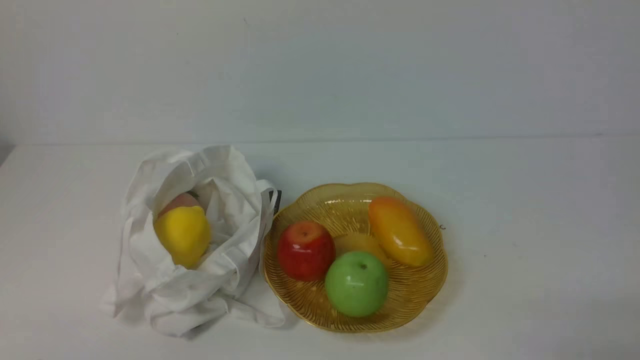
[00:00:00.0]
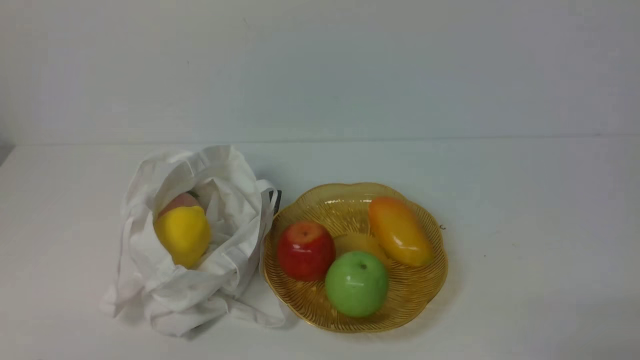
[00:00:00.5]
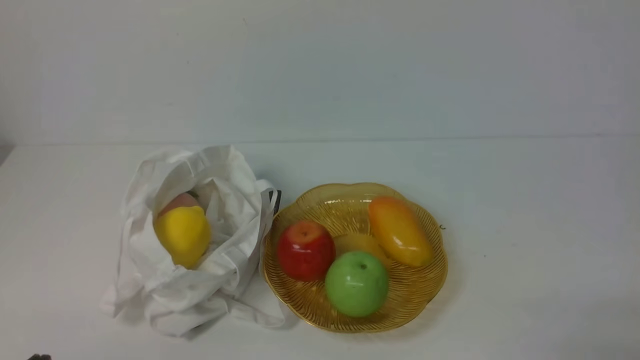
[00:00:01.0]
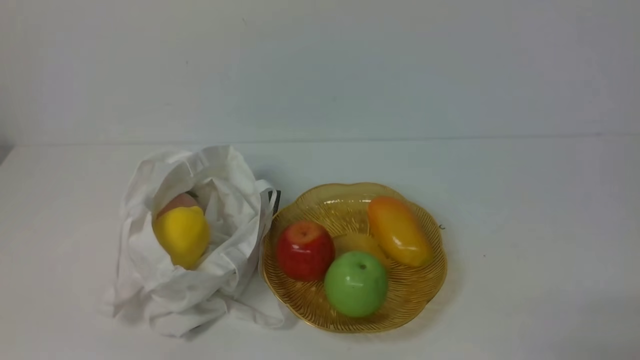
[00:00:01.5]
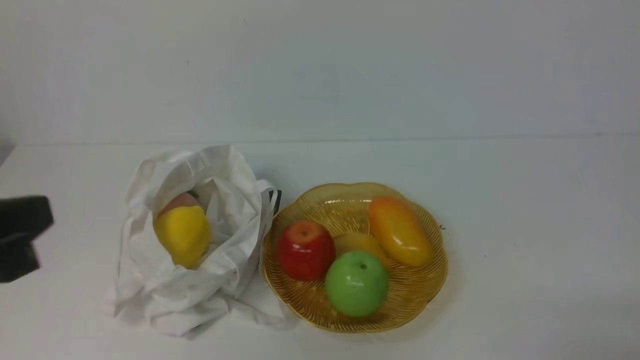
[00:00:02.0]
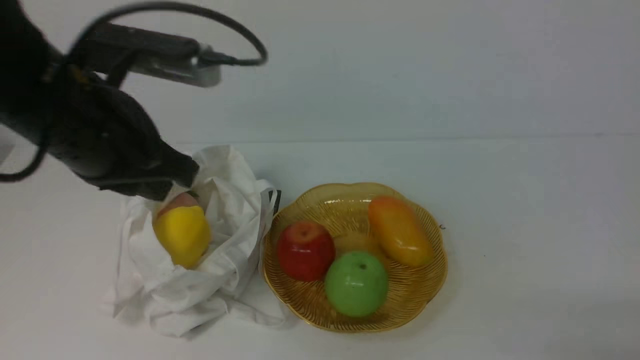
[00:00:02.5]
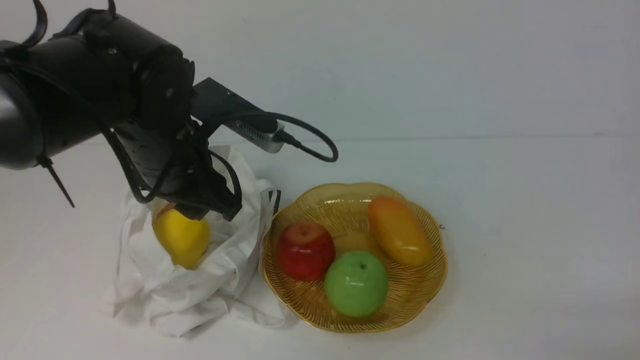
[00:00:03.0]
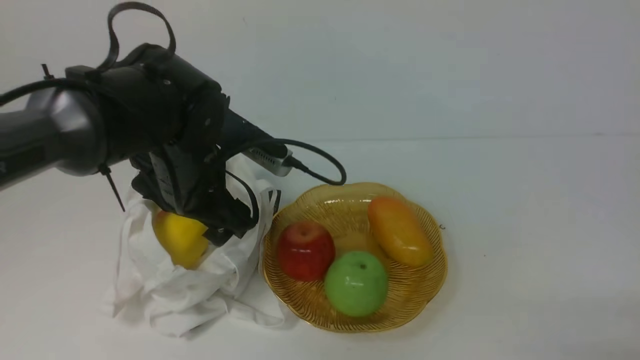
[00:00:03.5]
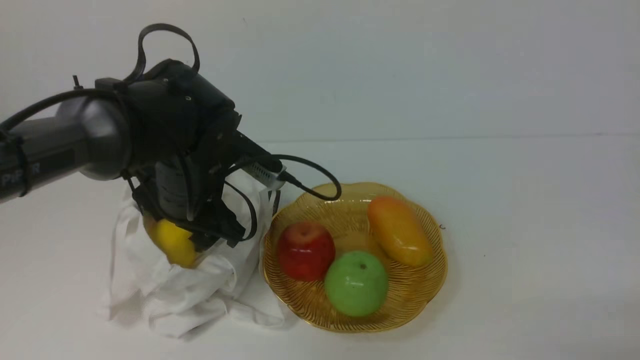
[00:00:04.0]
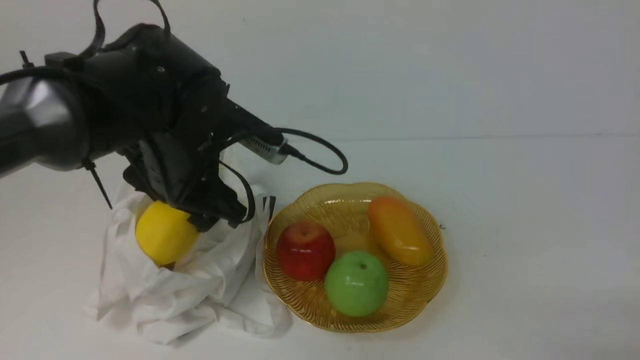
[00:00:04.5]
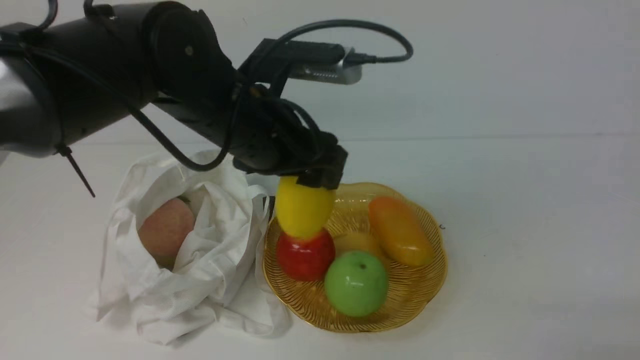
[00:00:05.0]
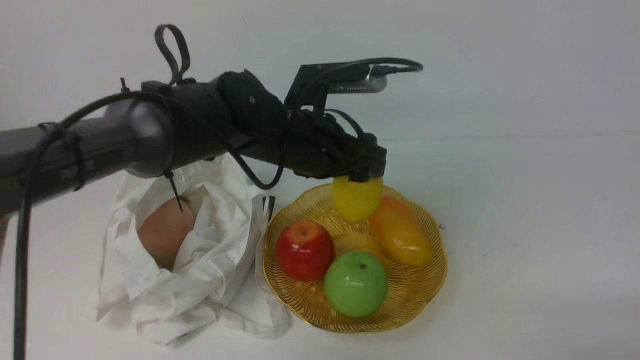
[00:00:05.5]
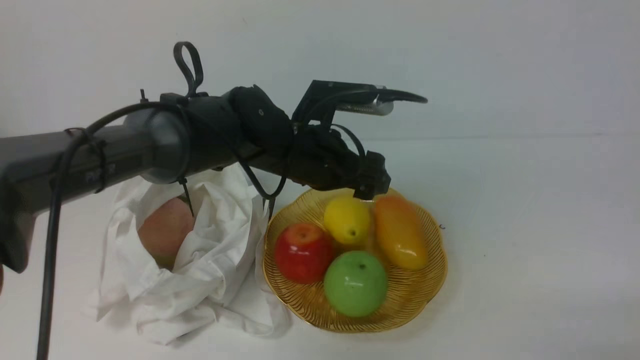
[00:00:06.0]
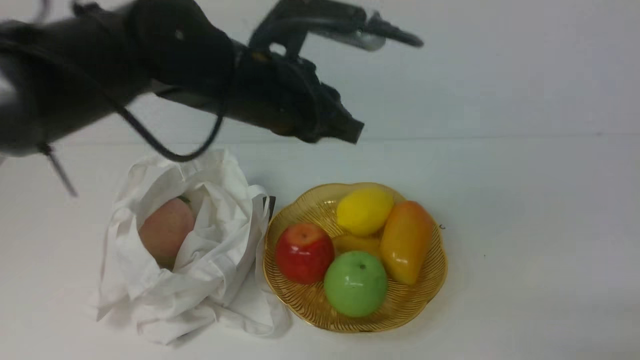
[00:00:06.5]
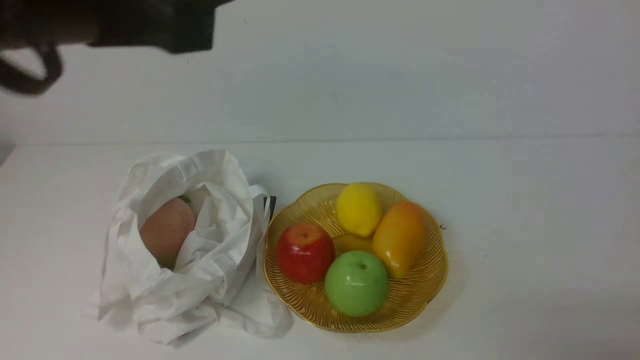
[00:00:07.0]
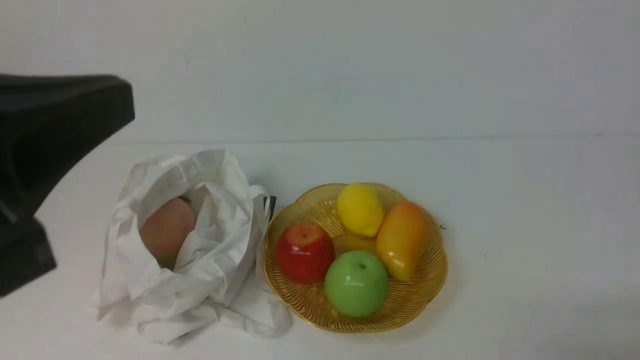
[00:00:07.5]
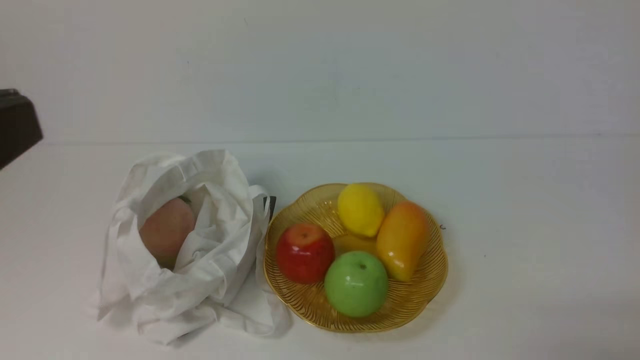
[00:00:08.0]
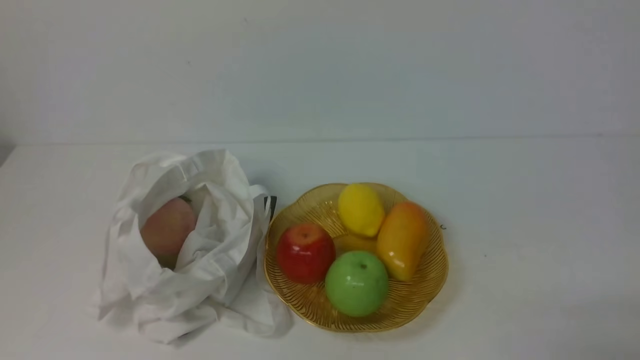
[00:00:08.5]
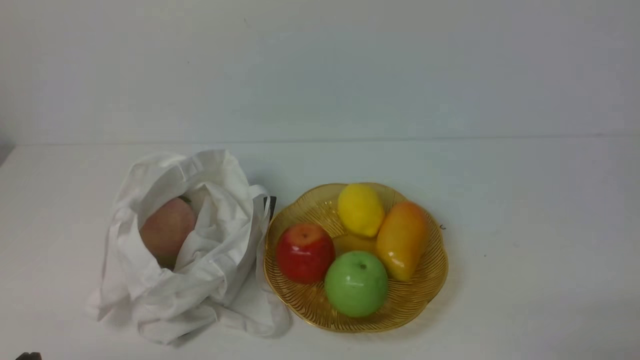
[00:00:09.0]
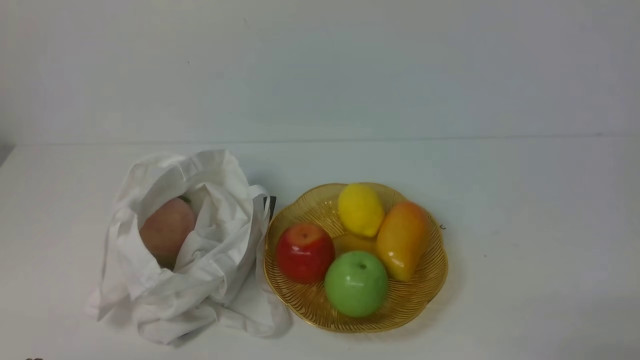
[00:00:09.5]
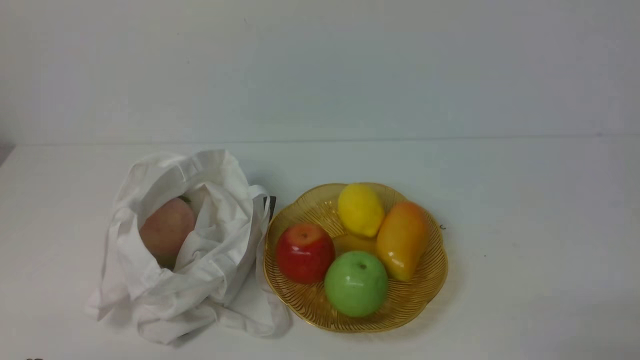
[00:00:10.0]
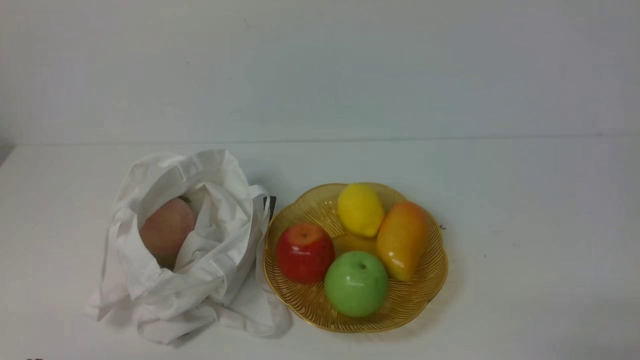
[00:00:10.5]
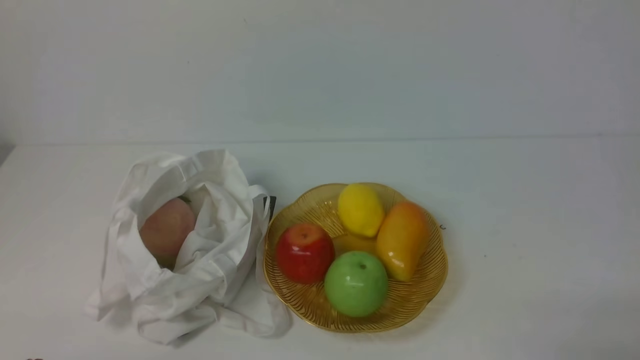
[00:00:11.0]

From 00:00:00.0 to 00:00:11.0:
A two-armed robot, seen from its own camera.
Step, from 00:00:00.0 to 00:00:04.0: use the left arm to grab a lemon from the bag.
Step, from 00:00:04.5 to 00:00:06.0: use the left arm to put the lemon into the empty plate on the right.
From 00:00:00.0 to 00:00:02.0: The left gripper shifts about 20 cm upward.
From 00:00:02.0 to 00:00:03.5: The left gripper is displaced forward, downward and to the right by some 25 cm, and opens its fingers.
From 00:00:03.5 to 00:00:05.5: The left gripper goes some 10 cm to the right.
From 00:00:05.5 to 00:00:07.5: The left gripper travels backward, upward and to the left by approximately 35 cm, and closes its fingers.
From 00:00:07.5 to 00:00:09.0: The left gripper goes about 25 cm downward.
From 00:00:09.0 to 00:00:11.0: Neither gripper changes place.
